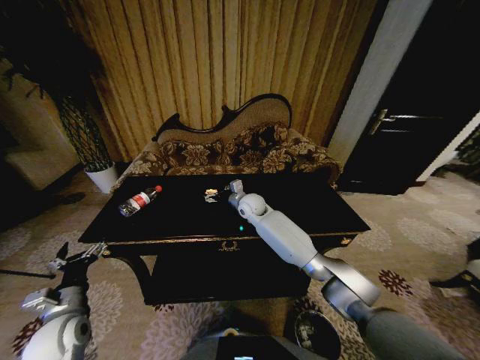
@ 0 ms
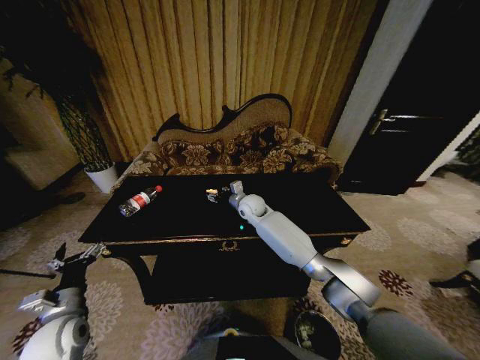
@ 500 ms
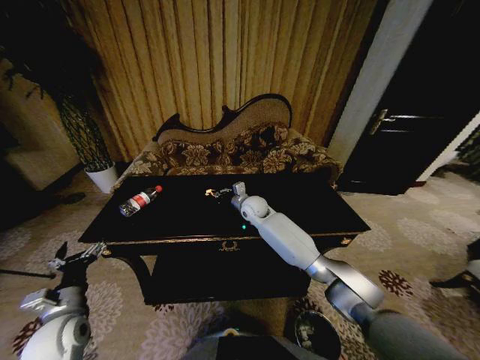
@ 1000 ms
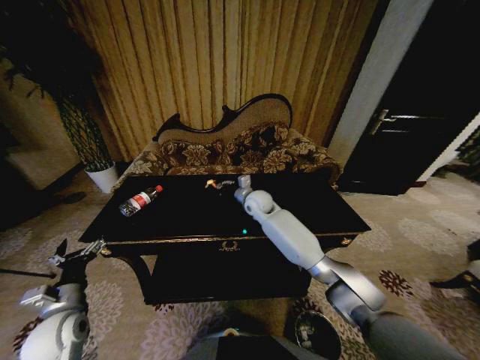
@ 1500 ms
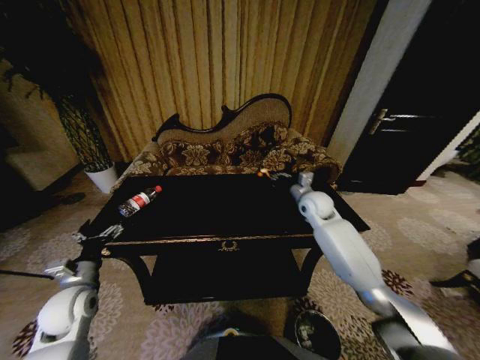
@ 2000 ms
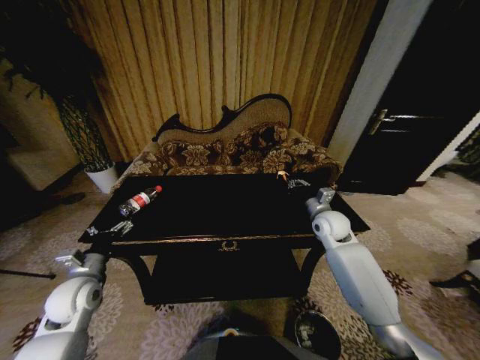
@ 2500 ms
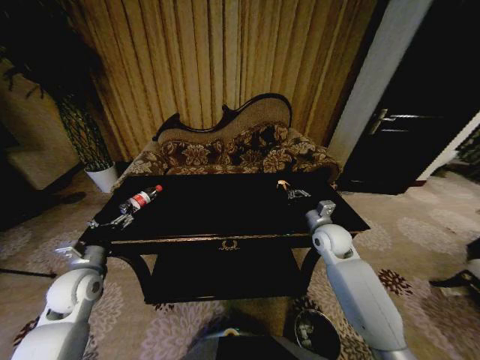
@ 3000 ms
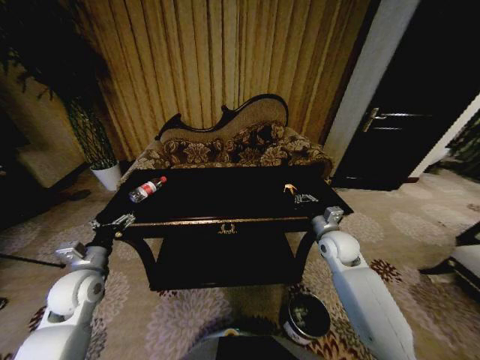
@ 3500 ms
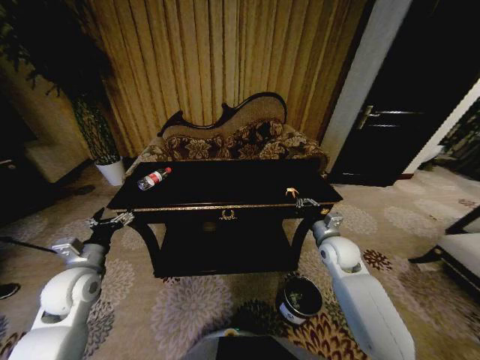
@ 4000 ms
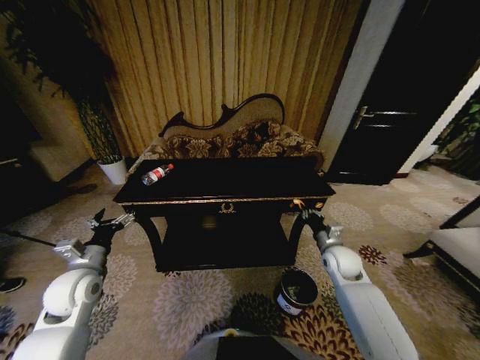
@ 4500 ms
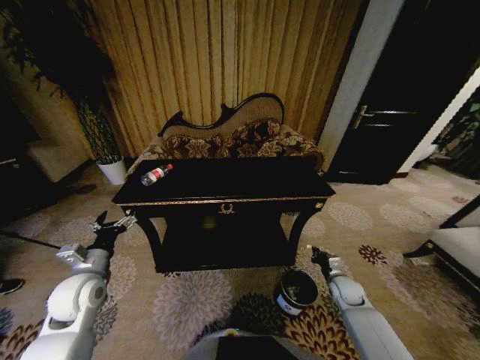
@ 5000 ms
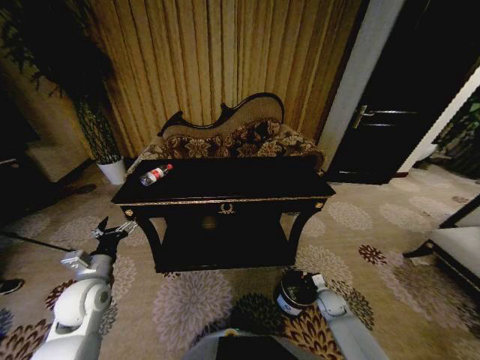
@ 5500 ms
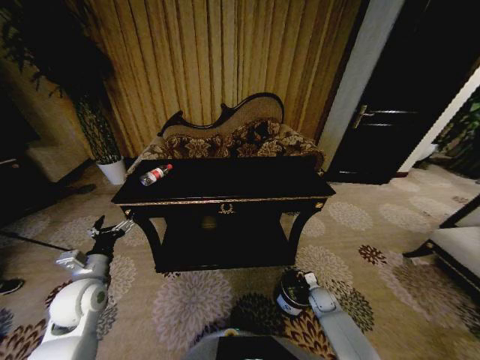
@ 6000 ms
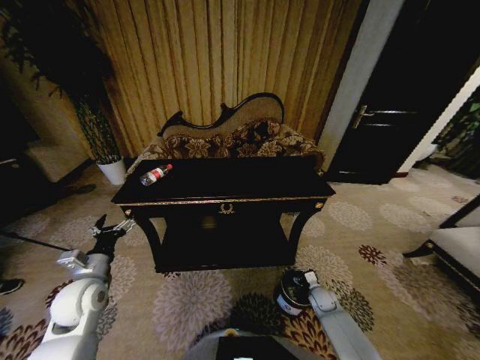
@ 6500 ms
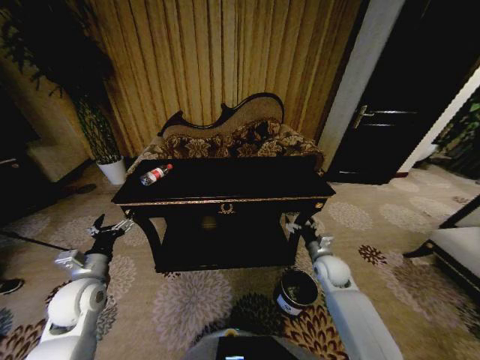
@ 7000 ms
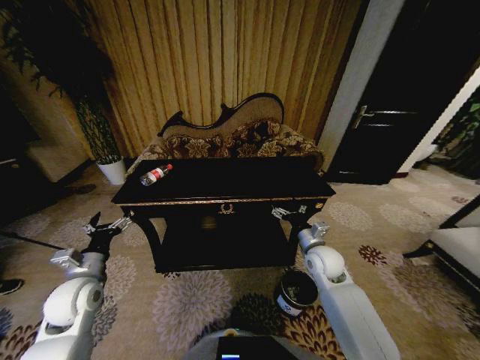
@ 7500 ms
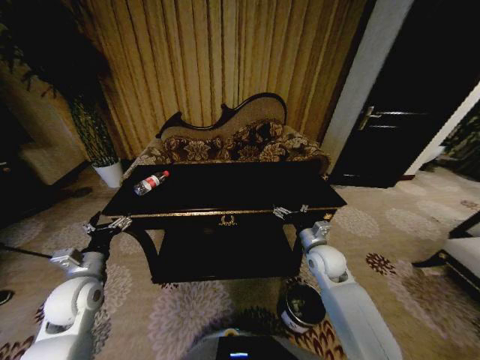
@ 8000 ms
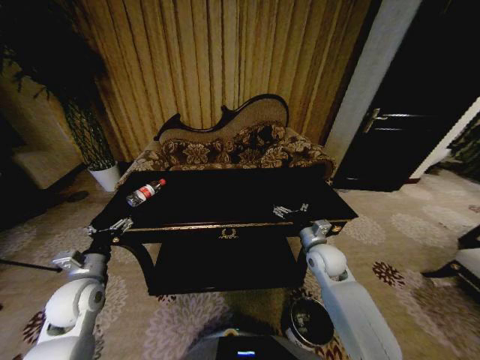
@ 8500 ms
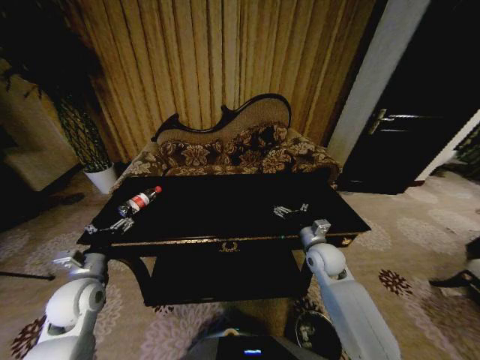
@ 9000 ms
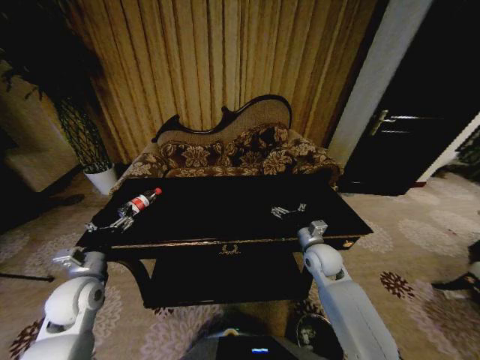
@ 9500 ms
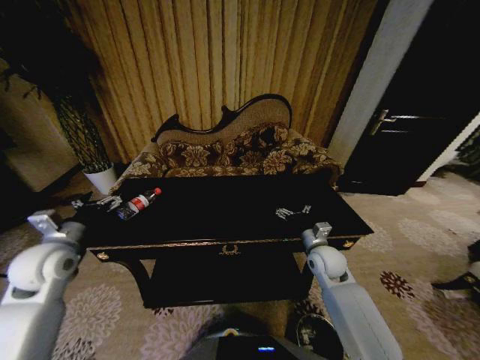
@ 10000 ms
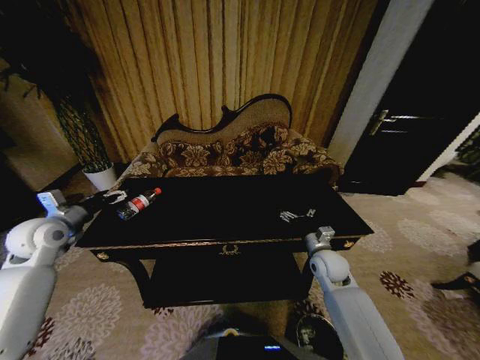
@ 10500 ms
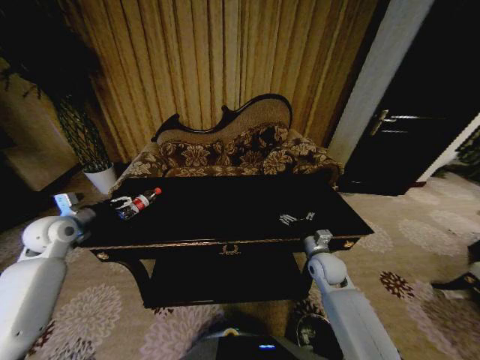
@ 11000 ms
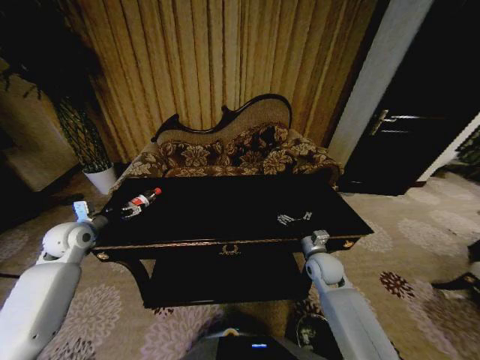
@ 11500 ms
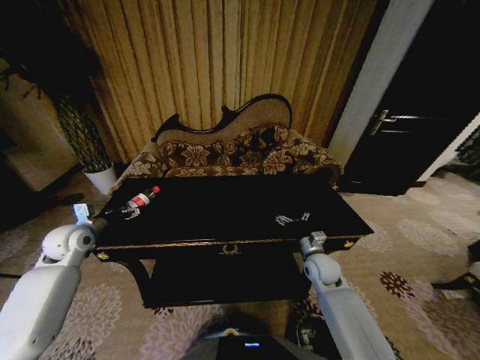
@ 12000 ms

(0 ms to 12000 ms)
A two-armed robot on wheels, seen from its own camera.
Task of the whole recording: Move to the front of the table and place the trash on the table into the trash bin.
0 ms - 2000 ms: The left gripper travels forward by approximately 5 cm. Meanwhile the right gripper is displaced to the right by about 20 cm, and closes up.
2000 ms - 4000 ms: The right gripper goes about 15 cm backward and downward. The left gripper changes place by some 5 cm.
4000 ms - 6000 ms: The right gripper travels downward by roughly 30 cm.
6000 ms - 8000 ms: The right gripper goes about 25 cm upward, and opens up.
8000 ms - 10000 ms: The left gripper moves upward, approximately 10 cm.
10000 ms - 12000 ms: The left gripper moves forward, roughly 10 cm.

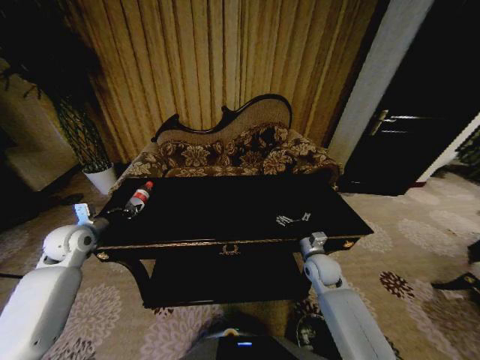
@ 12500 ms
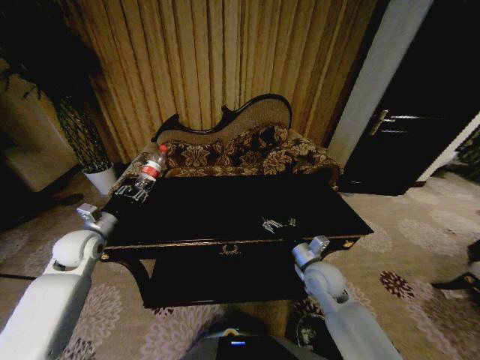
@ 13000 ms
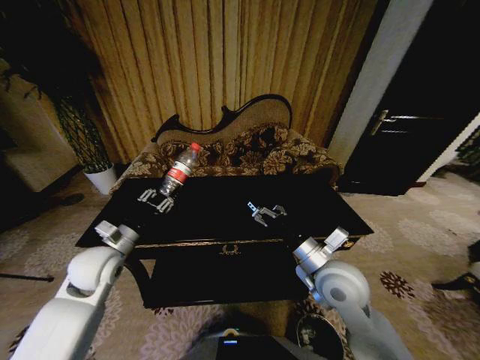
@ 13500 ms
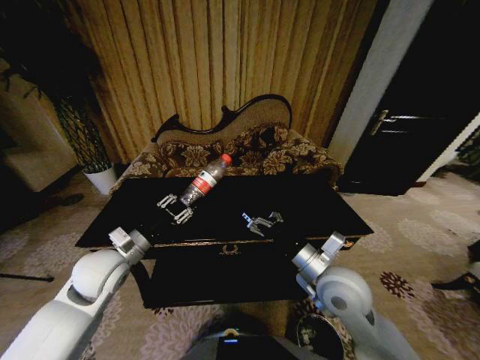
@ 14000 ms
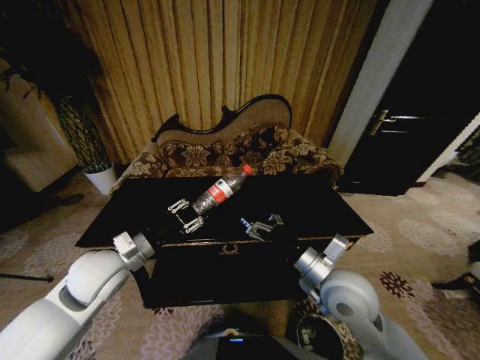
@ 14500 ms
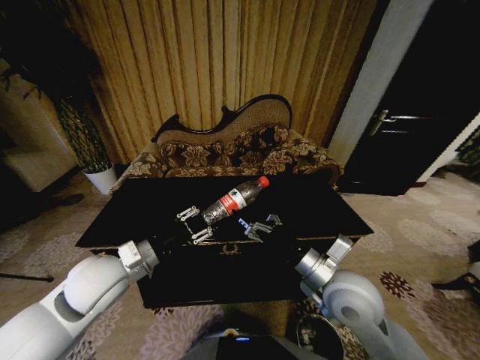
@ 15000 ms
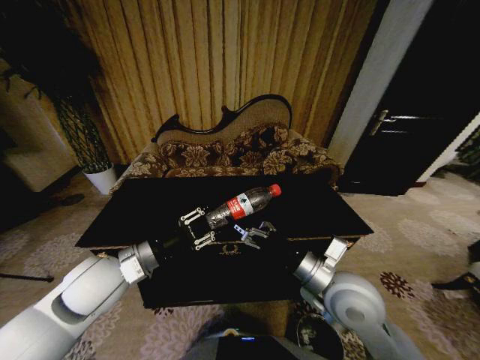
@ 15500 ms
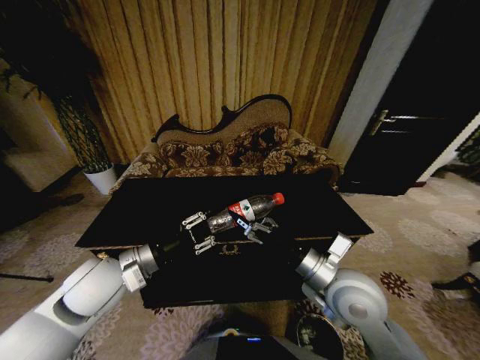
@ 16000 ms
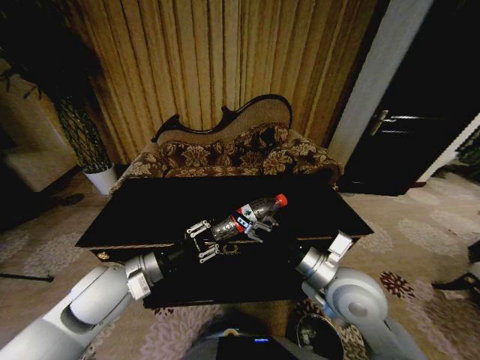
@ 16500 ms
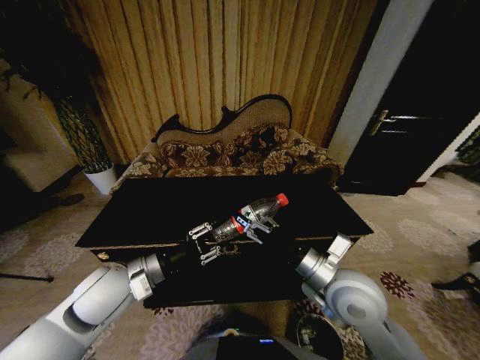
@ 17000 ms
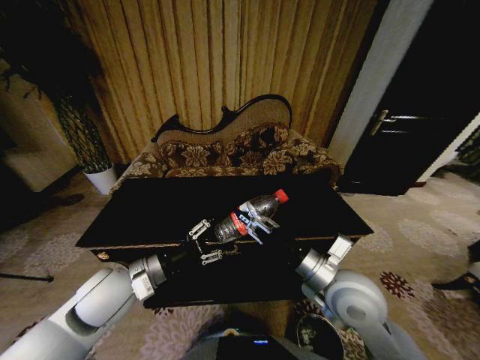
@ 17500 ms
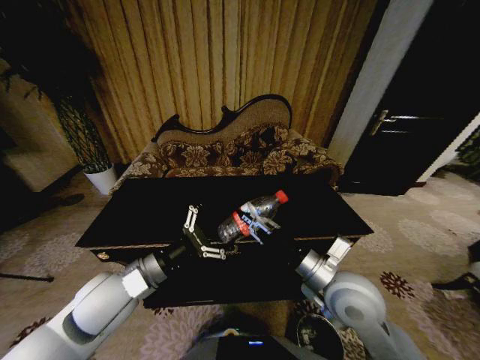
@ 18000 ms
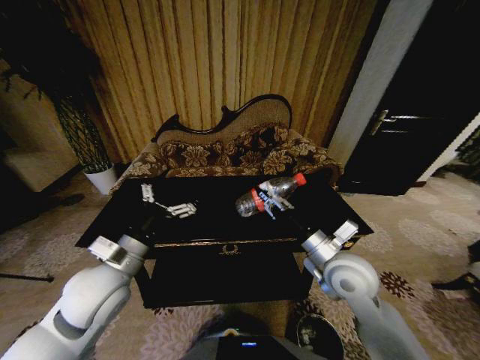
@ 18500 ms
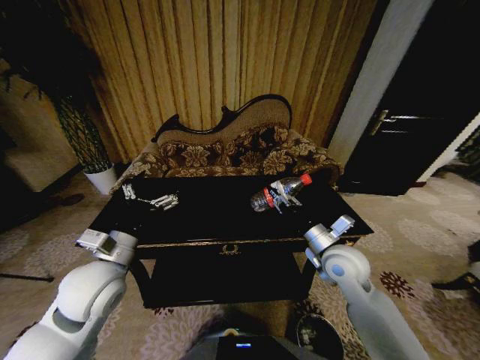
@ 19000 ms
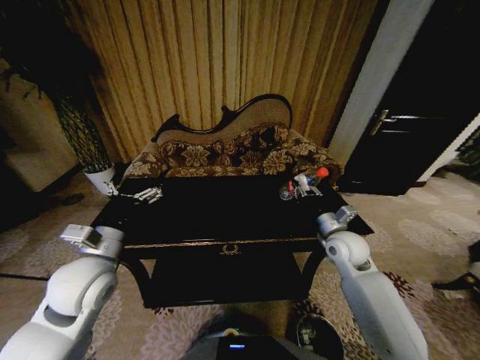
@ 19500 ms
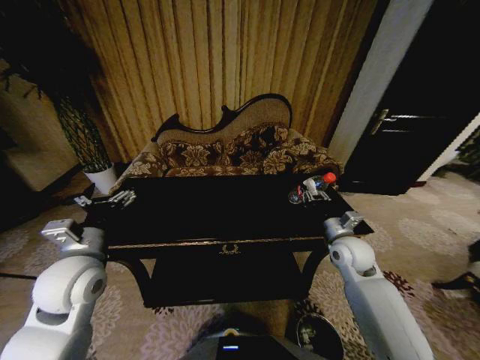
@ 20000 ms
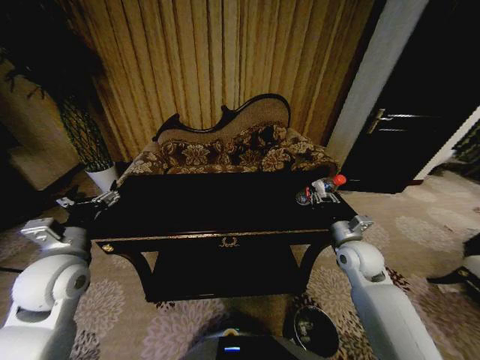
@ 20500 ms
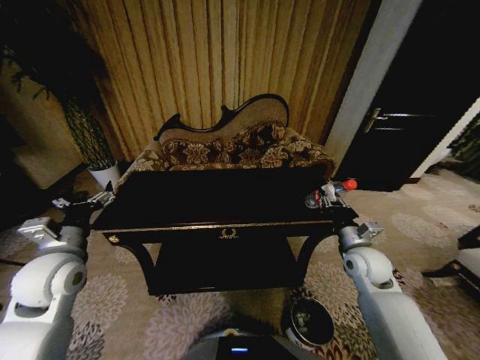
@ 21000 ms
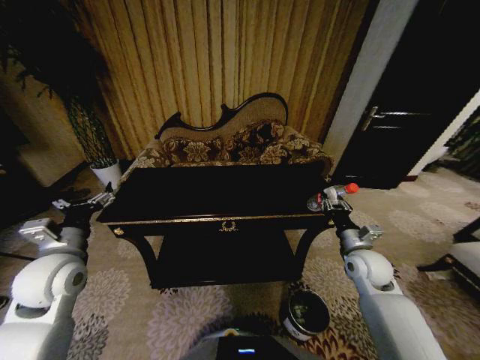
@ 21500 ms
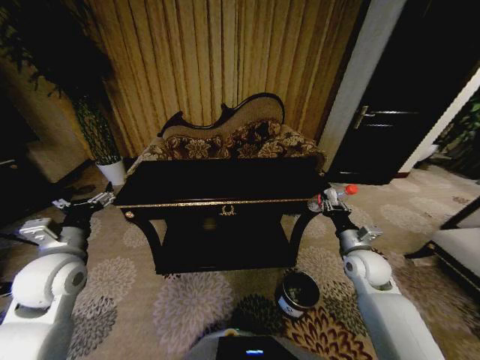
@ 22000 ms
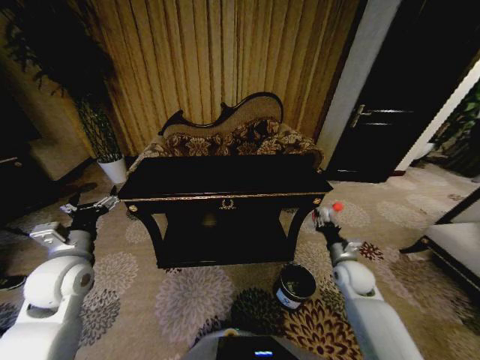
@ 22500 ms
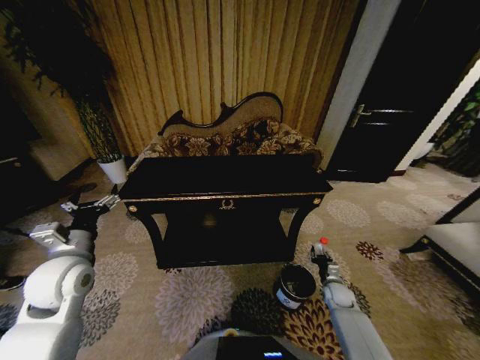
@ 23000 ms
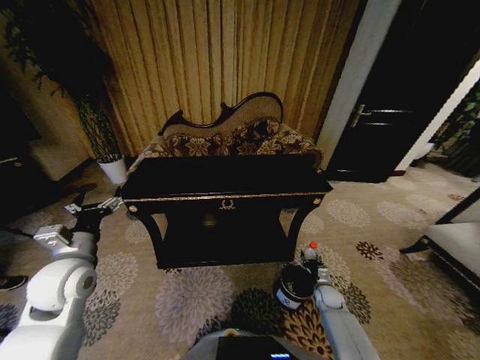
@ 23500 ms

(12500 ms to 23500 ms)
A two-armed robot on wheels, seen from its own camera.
Task of the whole recording: Move to the front of the table and place the trash on the table into the trash bin.
12500 ms - 14500 ms: The right gripper goes approximately 20 cm upward, backward and to the left, while the left gripper travels to the right and backward by about 20 cm.
16000 ms - 18000 ms: The right gripper closes. Meanwhile the left gripper opens.
18000 ms - 20000 ms: The left gripper moves to the left, approximately 5 cm, while the right gripper shifts about 20 cm forward, to the right and downward.
20000 ms - 21500 ms: The left gripper shifts roughly 5 cm to the left, while the right gripper moves about 5 cm.
21500 ms - 23500 ms: The right gripper heads downward, covering about 25 cm.

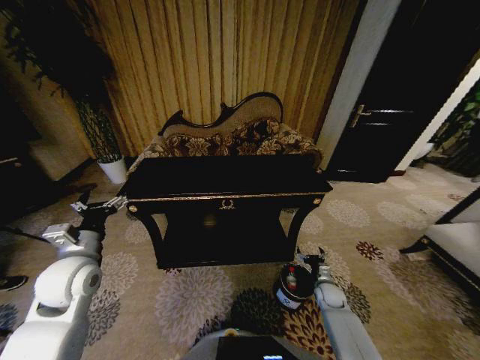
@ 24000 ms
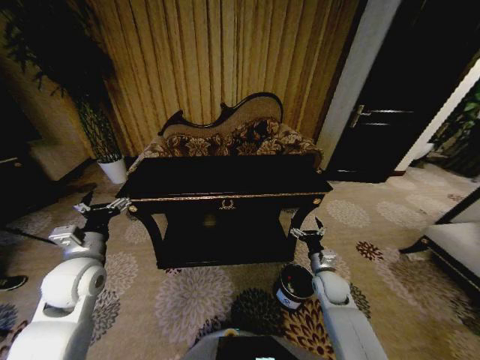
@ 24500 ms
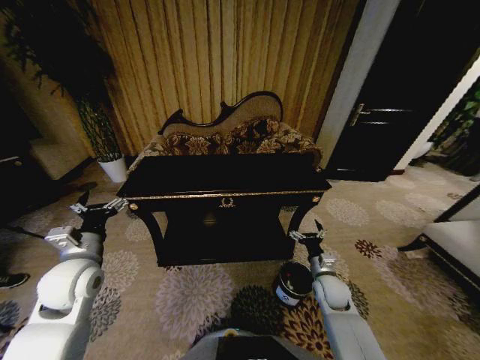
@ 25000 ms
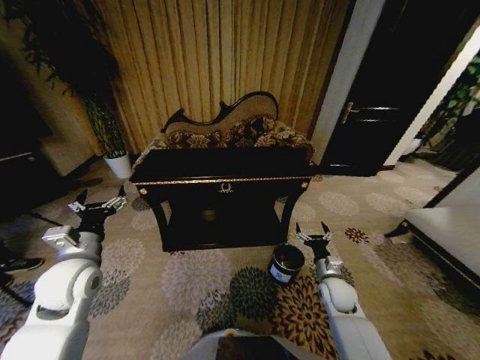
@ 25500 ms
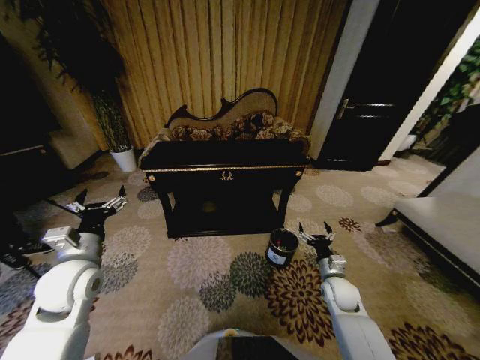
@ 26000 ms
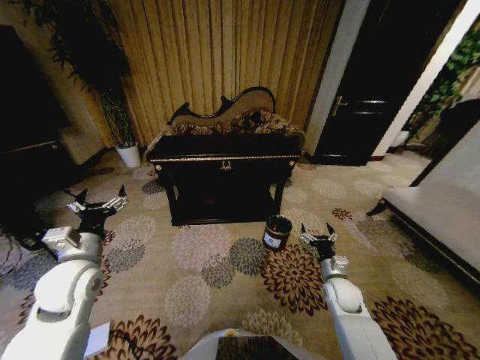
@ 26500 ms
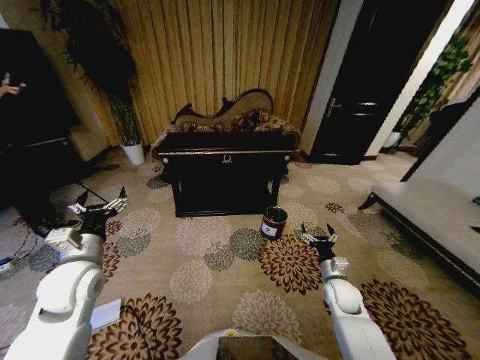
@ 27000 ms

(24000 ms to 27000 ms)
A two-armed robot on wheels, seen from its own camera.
Task of the whole recording: Move to the front of the table and place the trash on the table into the trash bin.
24000 ms - 25500 ms: The right gripper shifts some 10 cm upward.
